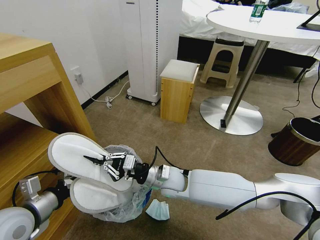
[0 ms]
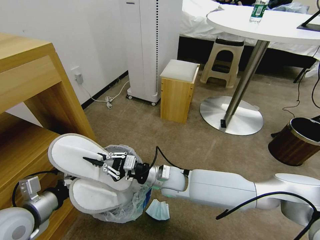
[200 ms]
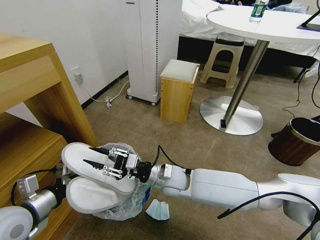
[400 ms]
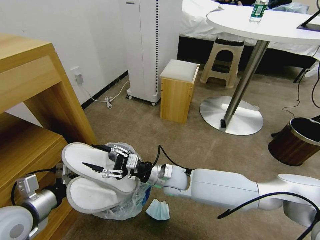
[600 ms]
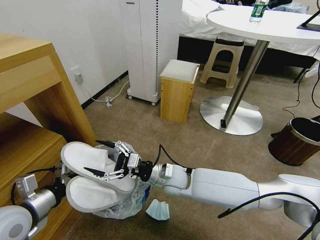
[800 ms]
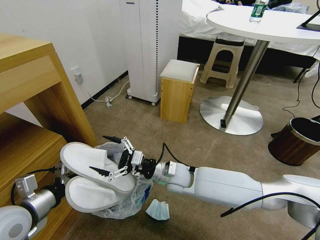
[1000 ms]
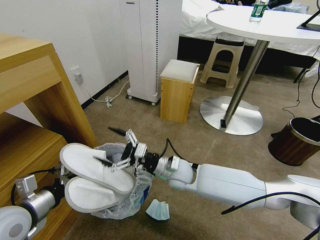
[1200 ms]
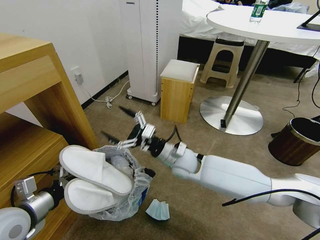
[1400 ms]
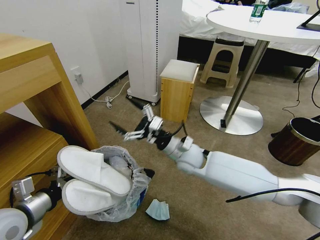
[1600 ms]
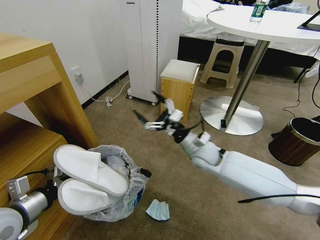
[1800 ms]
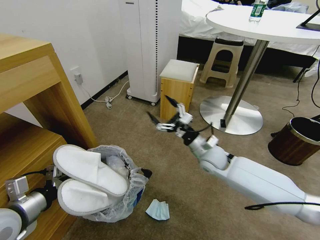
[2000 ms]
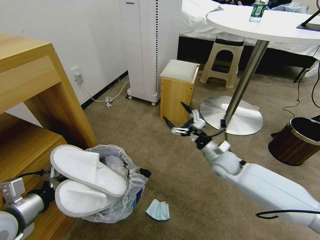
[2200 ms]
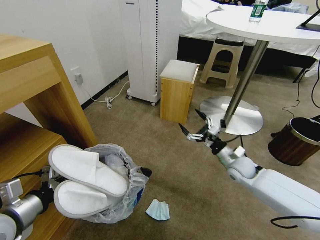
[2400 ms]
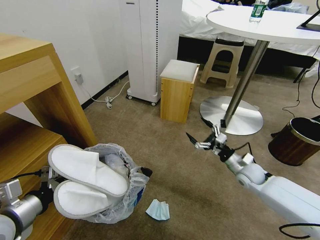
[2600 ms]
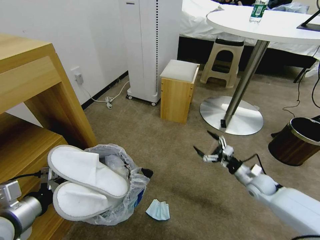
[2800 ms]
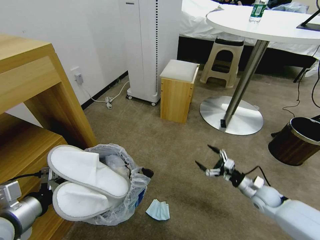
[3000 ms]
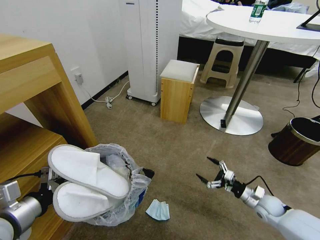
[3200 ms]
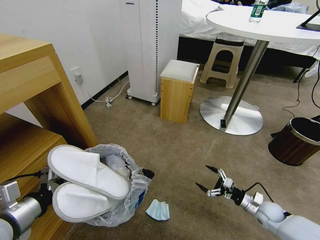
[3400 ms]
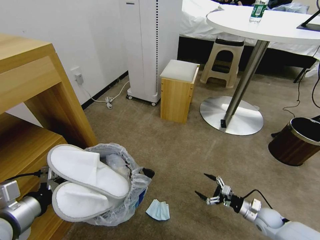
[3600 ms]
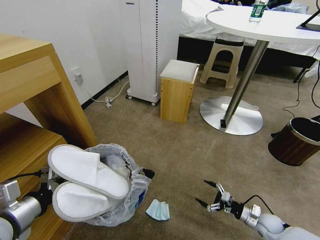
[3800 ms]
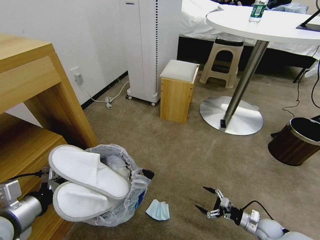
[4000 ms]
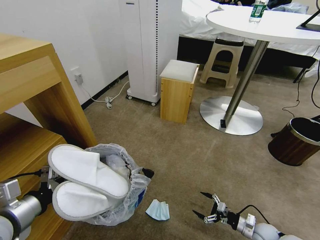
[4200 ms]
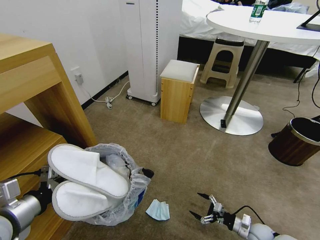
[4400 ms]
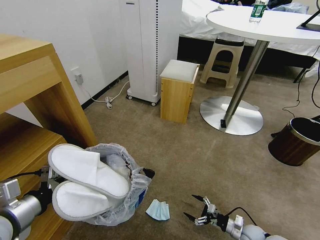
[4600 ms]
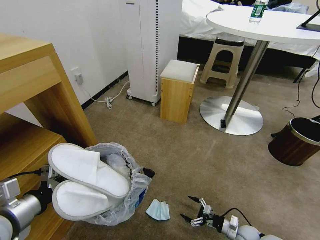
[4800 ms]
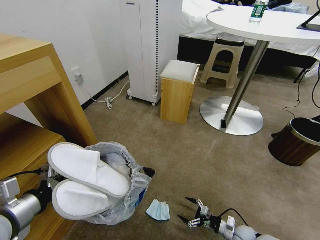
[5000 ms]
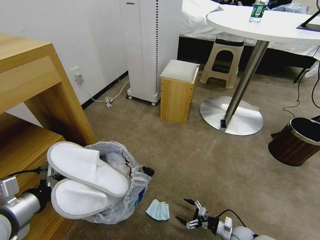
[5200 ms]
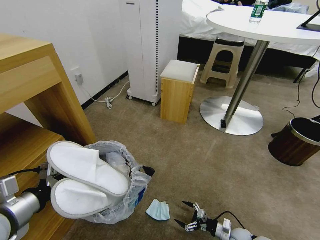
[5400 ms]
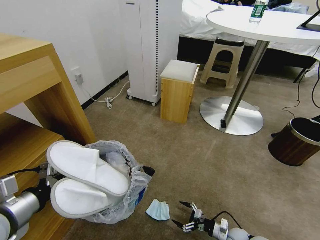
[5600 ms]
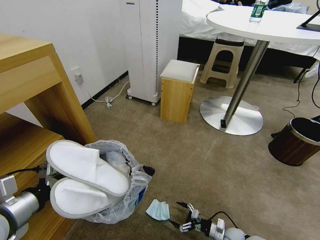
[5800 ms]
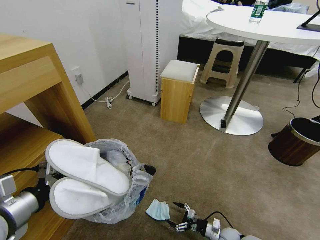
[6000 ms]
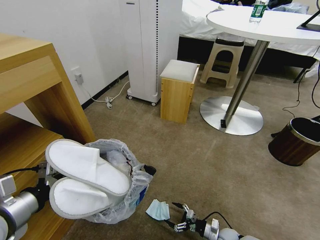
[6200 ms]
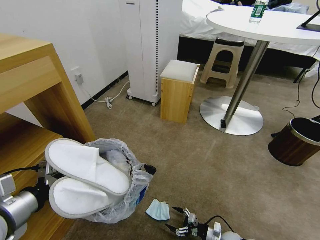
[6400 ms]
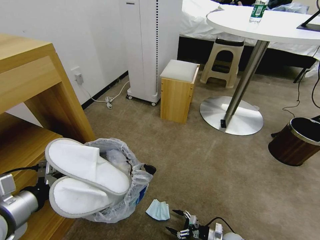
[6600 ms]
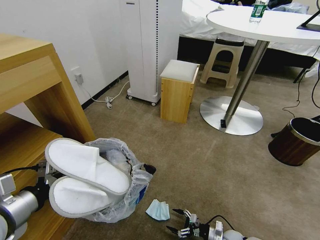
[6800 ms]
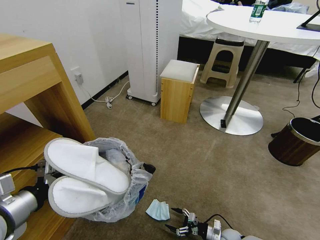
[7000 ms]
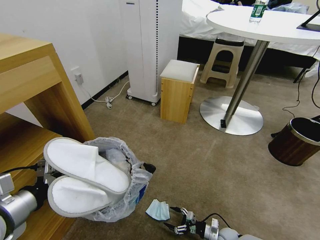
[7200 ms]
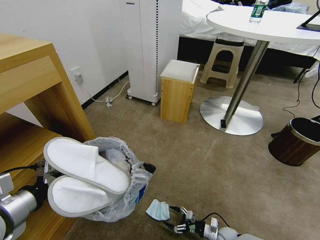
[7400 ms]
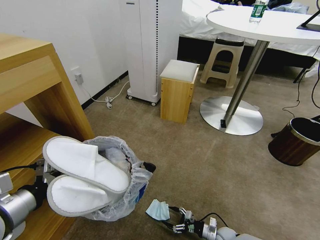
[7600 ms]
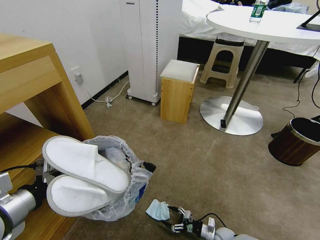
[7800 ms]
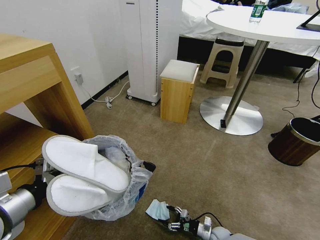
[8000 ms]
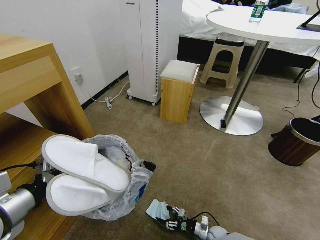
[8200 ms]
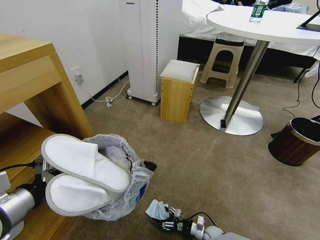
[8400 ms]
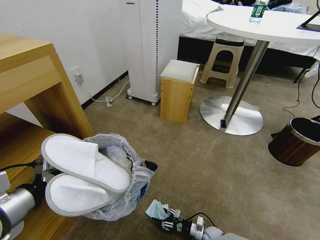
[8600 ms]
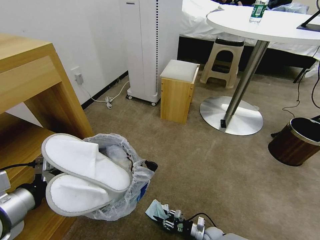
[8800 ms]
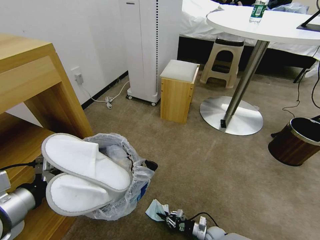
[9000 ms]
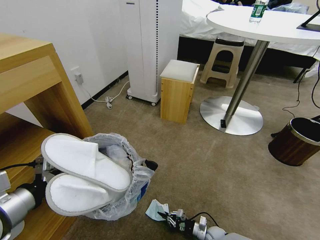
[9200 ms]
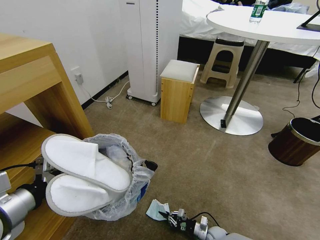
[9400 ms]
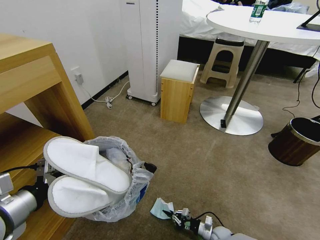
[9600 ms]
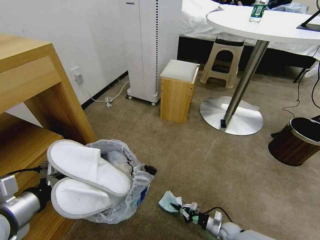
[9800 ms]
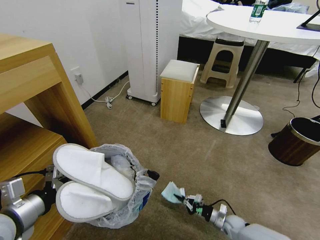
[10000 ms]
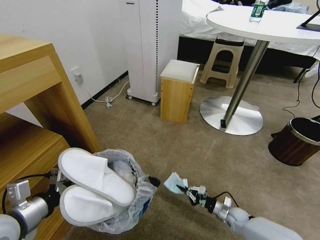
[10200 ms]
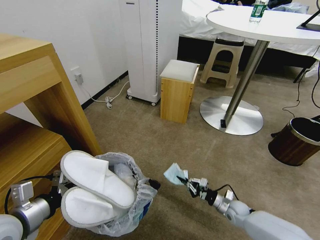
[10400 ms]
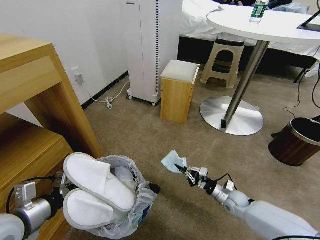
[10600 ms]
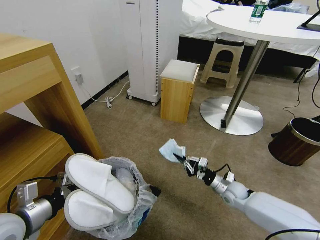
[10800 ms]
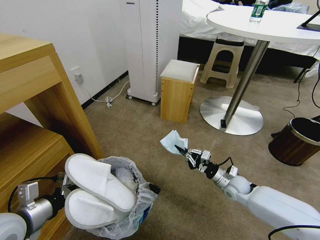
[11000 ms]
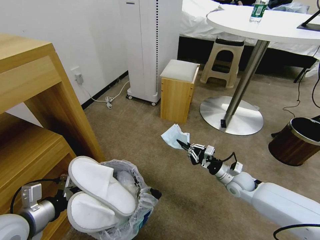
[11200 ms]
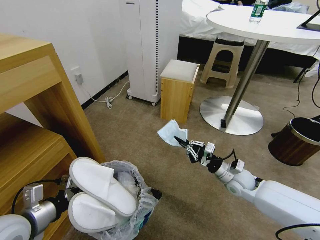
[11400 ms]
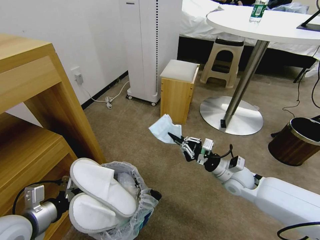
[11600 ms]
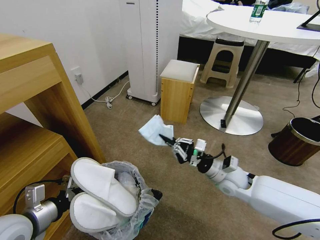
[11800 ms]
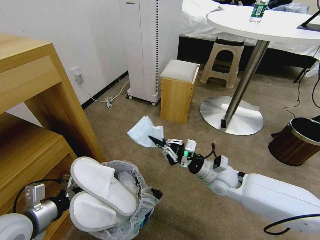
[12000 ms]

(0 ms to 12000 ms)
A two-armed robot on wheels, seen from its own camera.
Task of the whole recording: Pick up the trash bin and place the garbage on the floor into it.
0 ms - 1600 ms: The right gripper heads to the right, forward and upward, covering some 10 cm, and opens up.
1600 ms - 3000 ms: The right gripper moves to the right and downward, about 35 cm.
3000 ms - 4400 ms: The right gripper shifts some 15 cm downward and backward.
4400 ms - 6000 ms: The right gripper is displaced to the left and downward by some 10 cm.
6000 ms - 7600 ms: The grippers stay close to where they were, moving slightly.
7600 ms - 9000 ms: The right gripper closes up.
9000 ms - 10400 ms: The right gripper is displaced upward, forward and to the right by some 15 cm, while the left gripper is displaced downward by some 5 cm.
10400 ms - 12000 ms: The right gripper is displaced upward and to the left by about 25 cm.

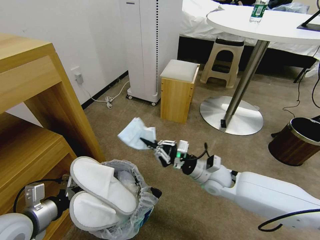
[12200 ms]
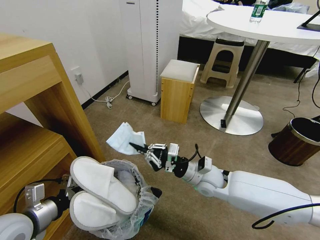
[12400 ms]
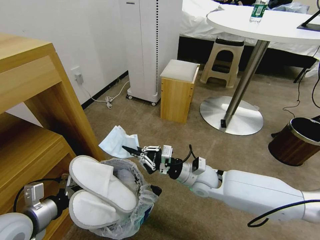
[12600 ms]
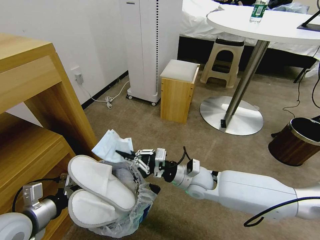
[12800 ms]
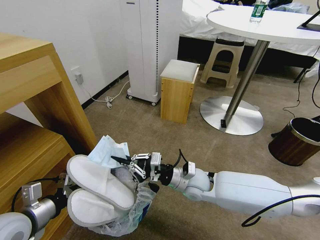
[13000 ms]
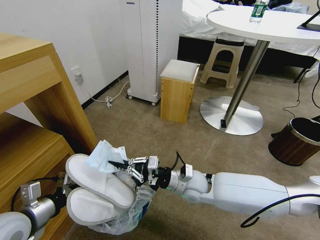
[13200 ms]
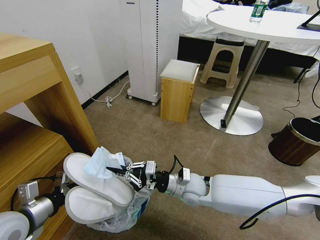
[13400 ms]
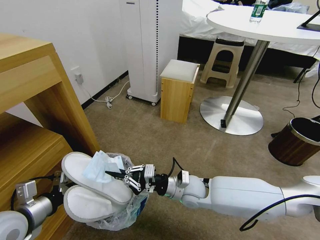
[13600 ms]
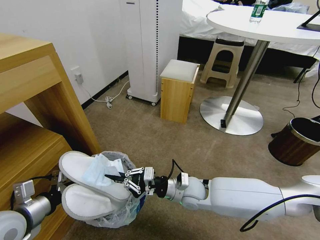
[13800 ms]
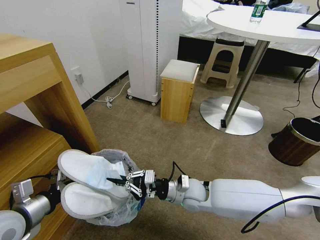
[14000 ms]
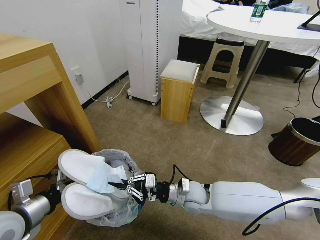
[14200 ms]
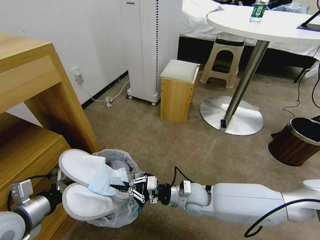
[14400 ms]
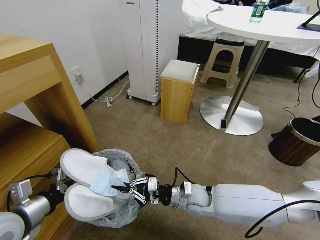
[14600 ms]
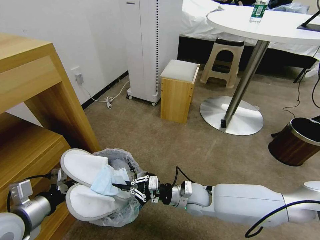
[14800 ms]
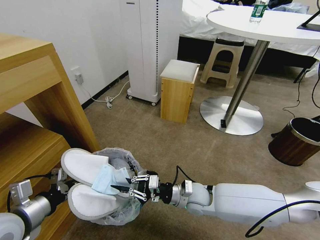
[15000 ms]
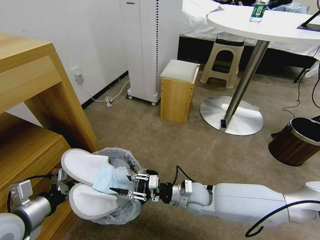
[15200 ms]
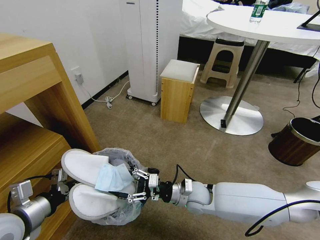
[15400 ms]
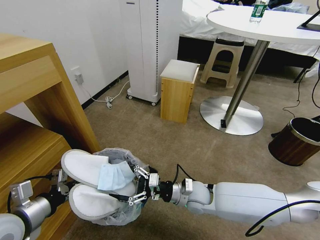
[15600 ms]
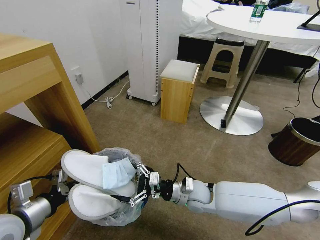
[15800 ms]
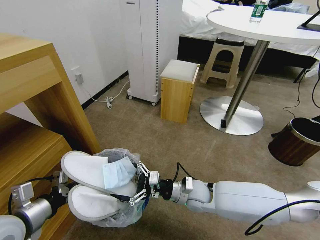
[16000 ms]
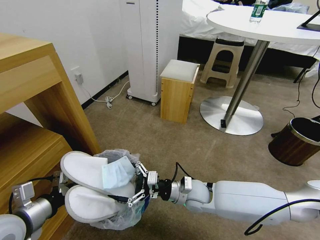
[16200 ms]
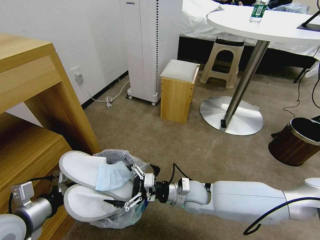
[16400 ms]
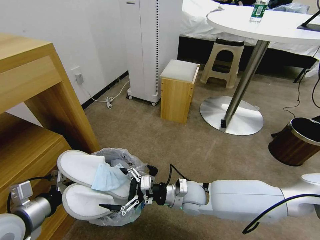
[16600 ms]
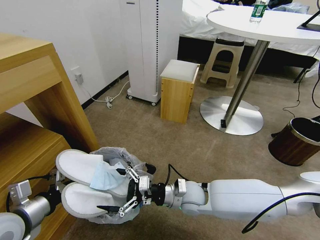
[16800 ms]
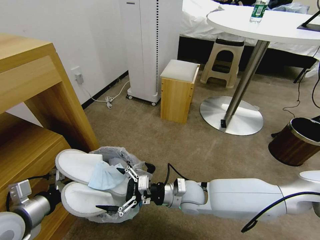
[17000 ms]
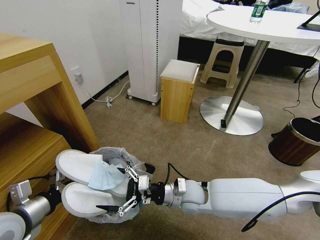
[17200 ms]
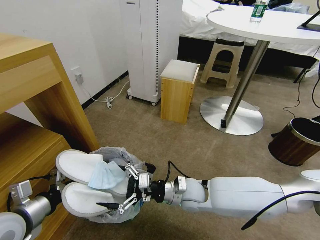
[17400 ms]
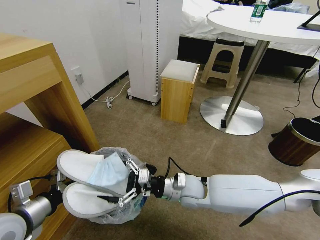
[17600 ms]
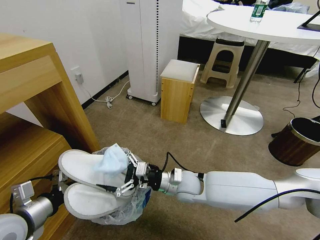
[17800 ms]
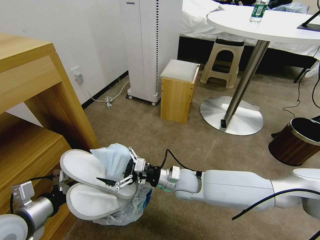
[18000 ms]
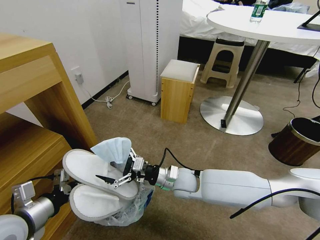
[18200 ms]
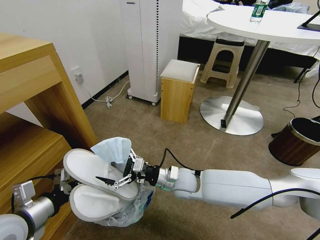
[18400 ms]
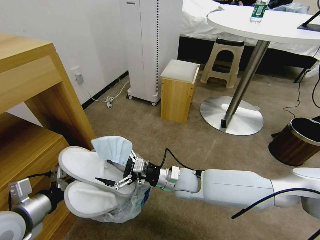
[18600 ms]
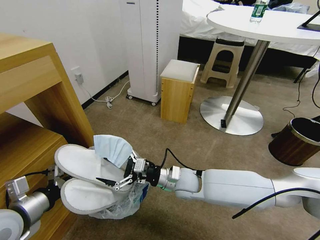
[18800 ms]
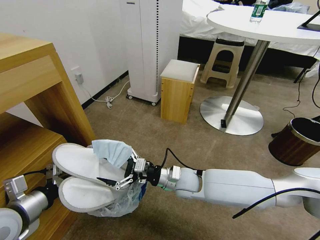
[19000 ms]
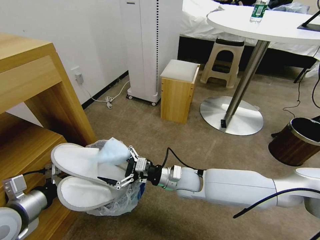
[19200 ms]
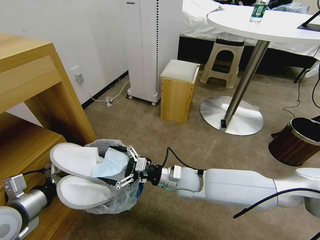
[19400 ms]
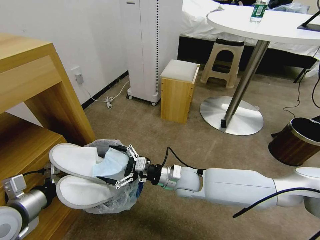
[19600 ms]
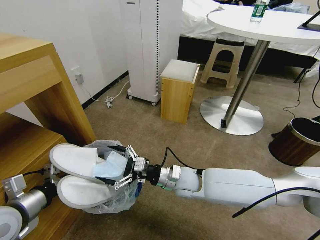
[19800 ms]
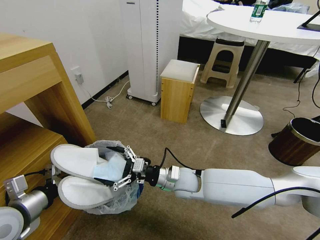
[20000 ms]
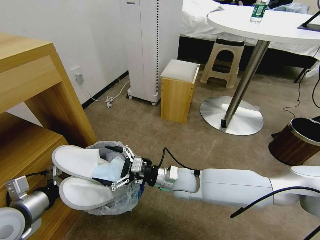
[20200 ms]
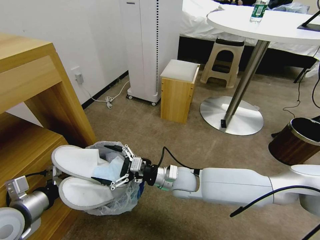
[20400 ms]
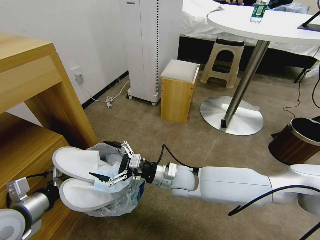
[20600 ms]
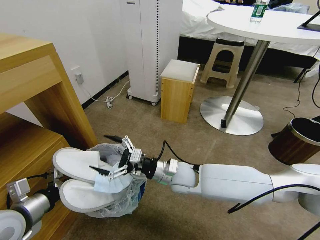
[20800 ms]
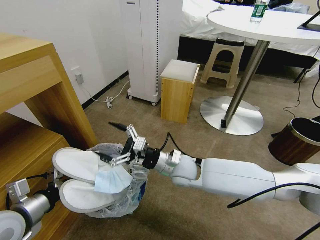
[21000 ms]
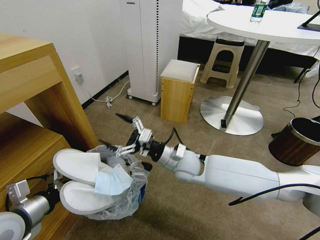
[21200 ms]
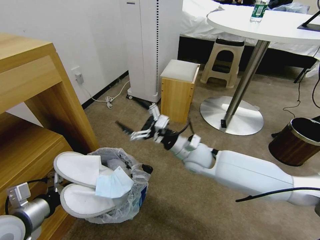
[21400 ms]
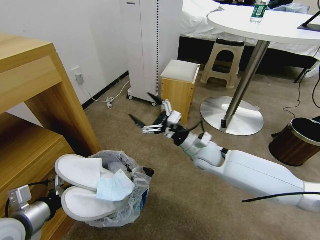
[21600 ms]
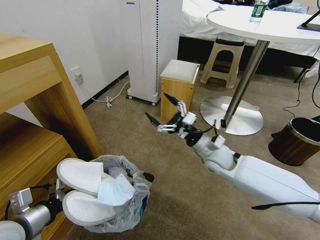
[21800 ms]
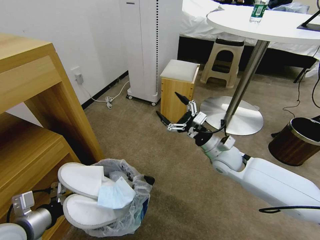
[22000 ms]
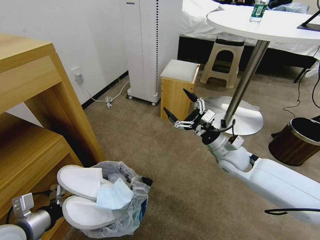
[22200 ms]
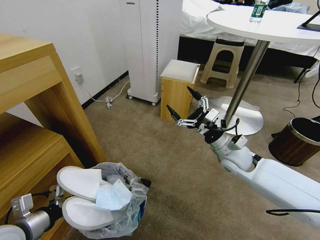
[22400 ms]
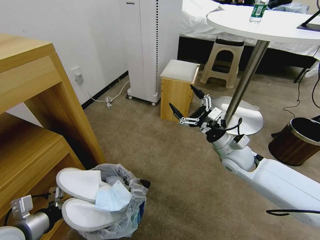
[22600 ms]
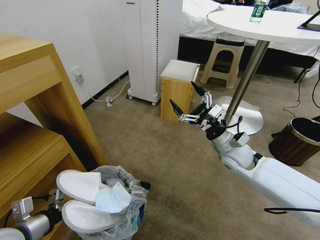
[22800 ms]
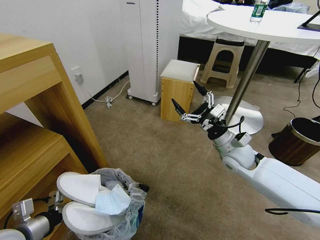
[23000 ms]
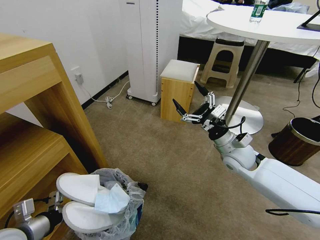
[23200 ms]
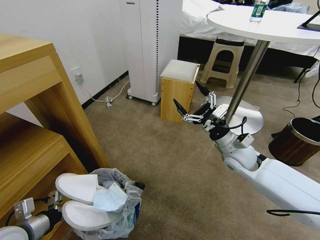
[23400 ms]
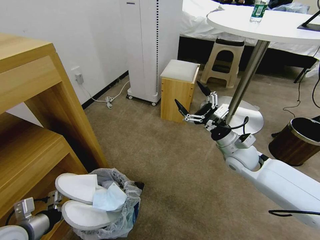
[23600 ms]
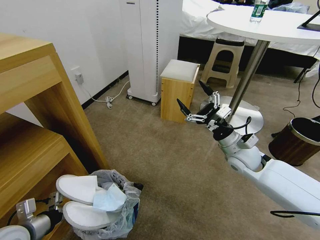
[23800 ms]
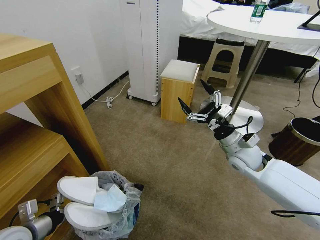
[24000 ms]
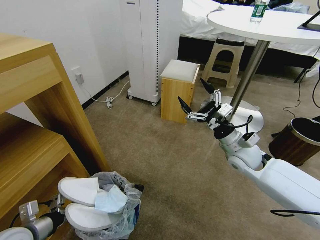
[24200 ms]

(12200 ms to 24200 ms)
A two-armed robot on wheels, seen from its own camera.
Task of the whole recording: Pick up the trash bin and place the garbage on the floor into it.
12200 ms - 13800 ms: The right gripper heads to the left, covering approximately 5 cm.
13800 ms - 15200 ms: The right gripper opens.
15200 ms - 16600 ms: The right gripper opens up.
16600 ms - 18200 ms: The right gripper ends up roughly 5 cm from where it was.
18200 ms - 19800 ms: The grippers stay close to where they were, moving slightly.
19800 ms - 21200 ms: The right gripper heads upward, covering about 5 cm.
21200 ms - 22600 ms: The right gripper travels to the right by about 15 cm.
22600 ms - 24200 ms: The left gripper is displaced downward by roughly 5 cm.
